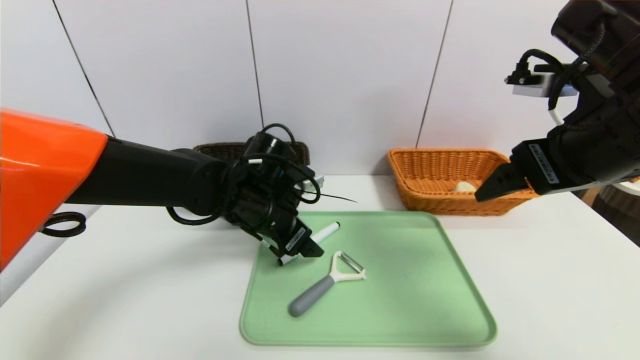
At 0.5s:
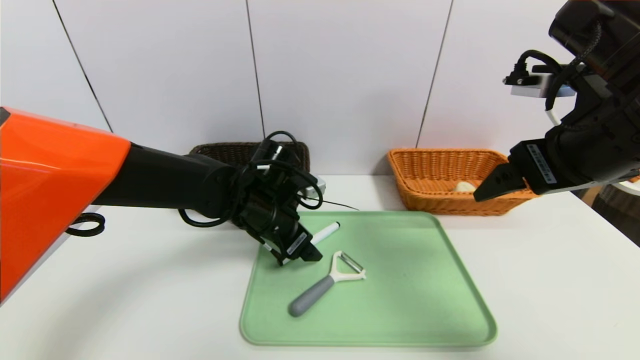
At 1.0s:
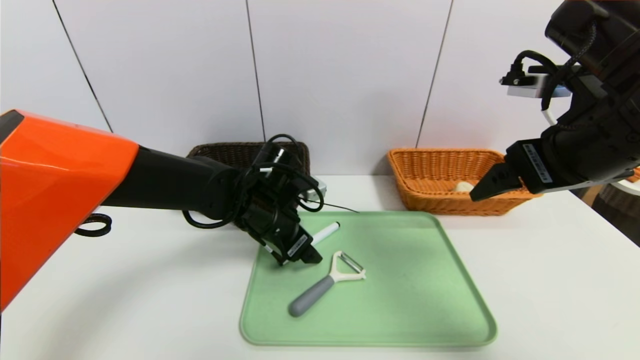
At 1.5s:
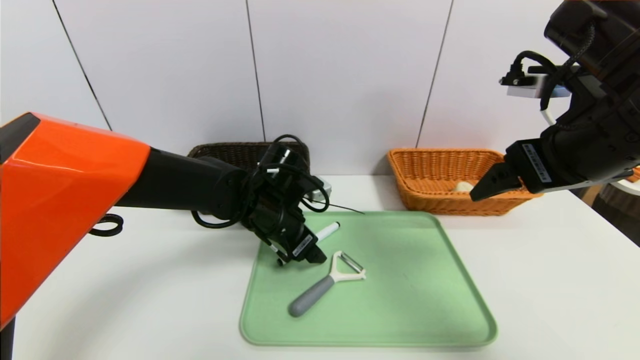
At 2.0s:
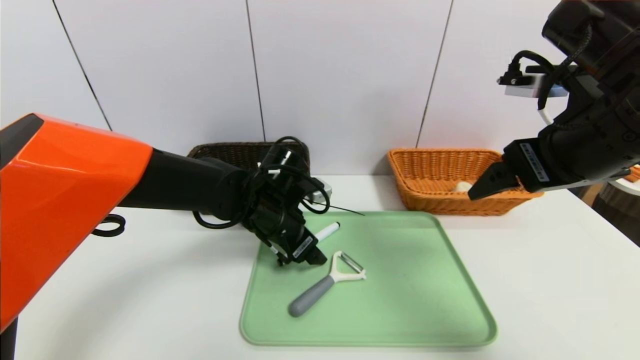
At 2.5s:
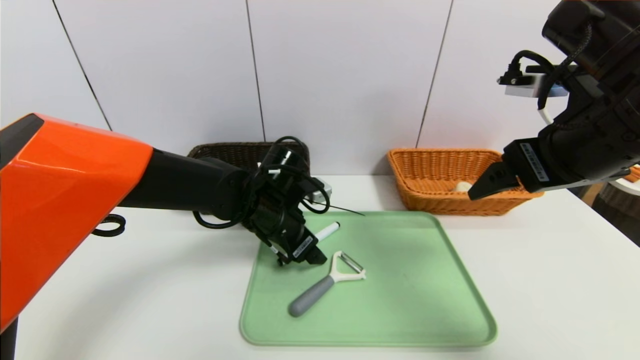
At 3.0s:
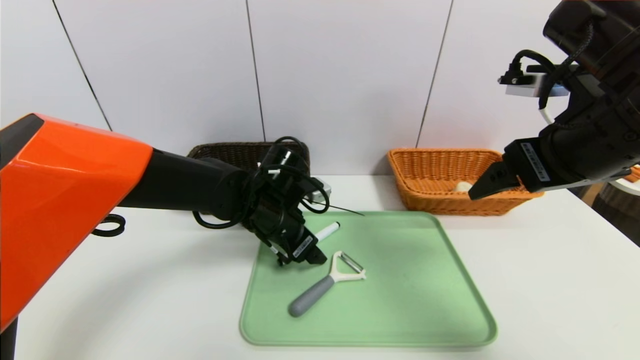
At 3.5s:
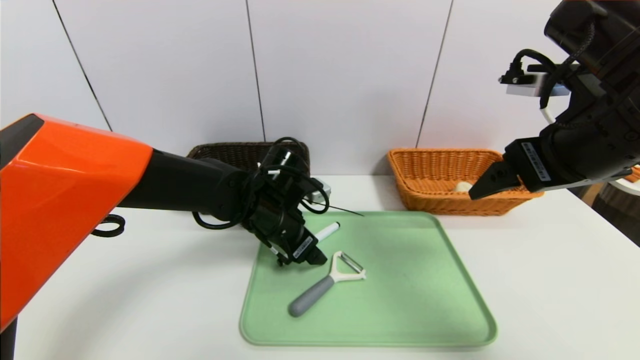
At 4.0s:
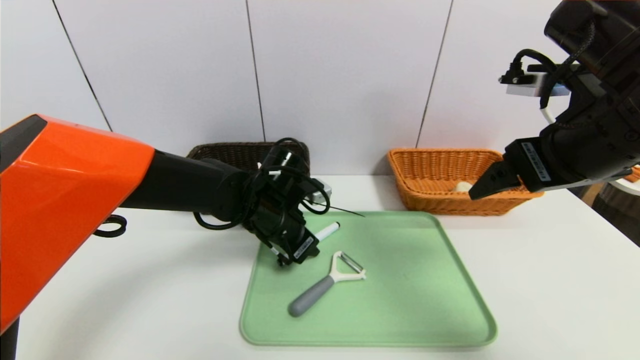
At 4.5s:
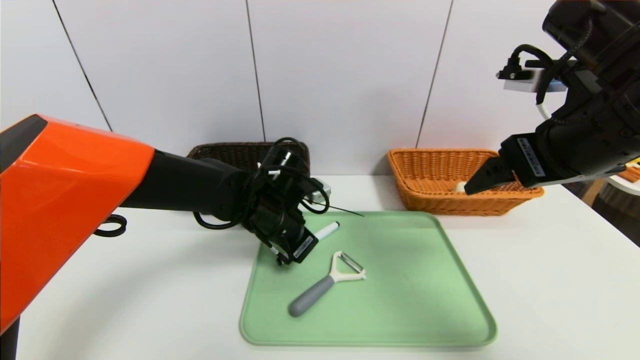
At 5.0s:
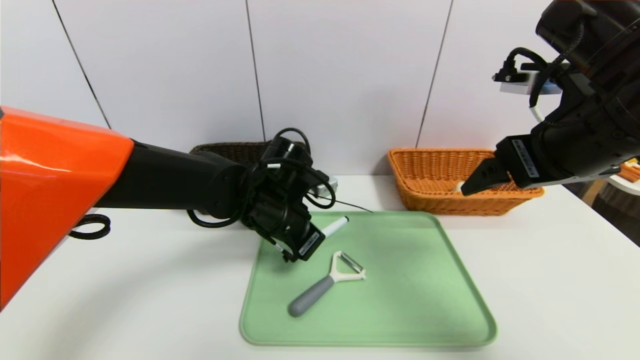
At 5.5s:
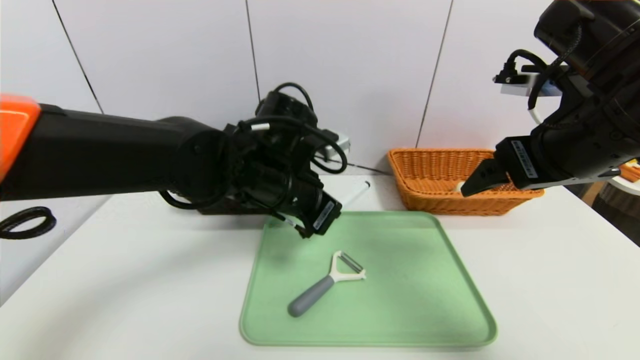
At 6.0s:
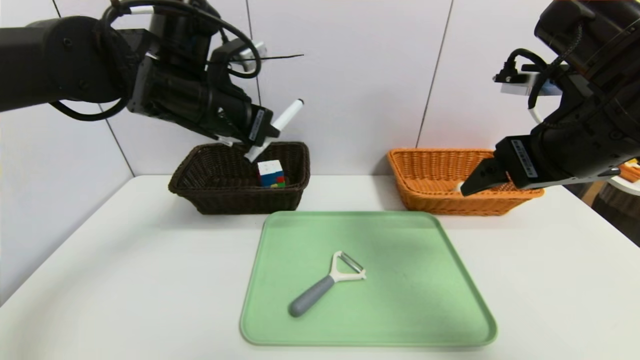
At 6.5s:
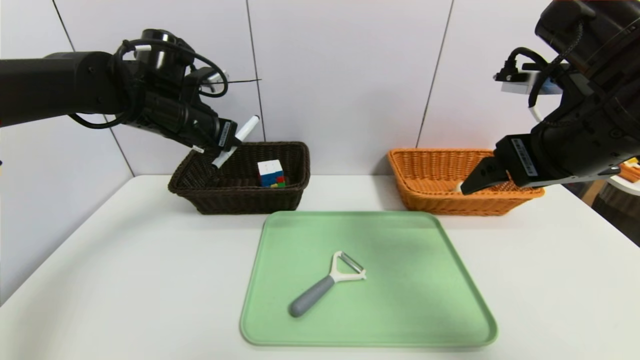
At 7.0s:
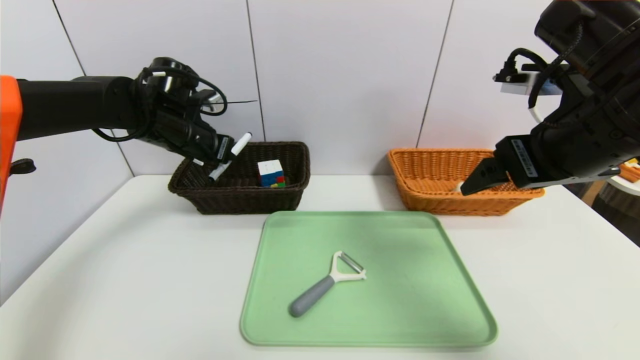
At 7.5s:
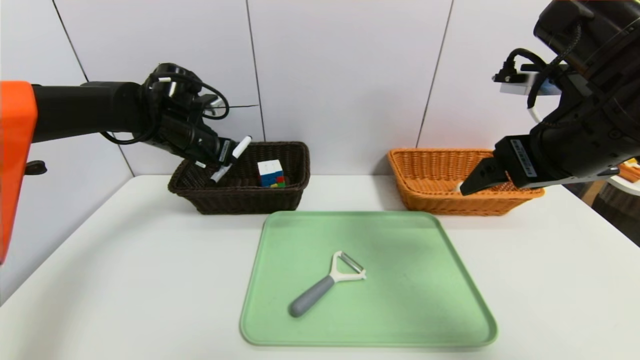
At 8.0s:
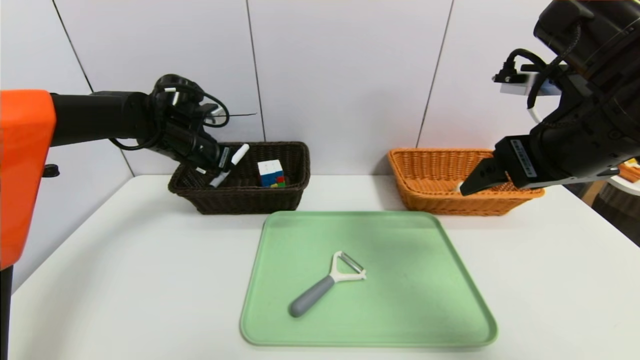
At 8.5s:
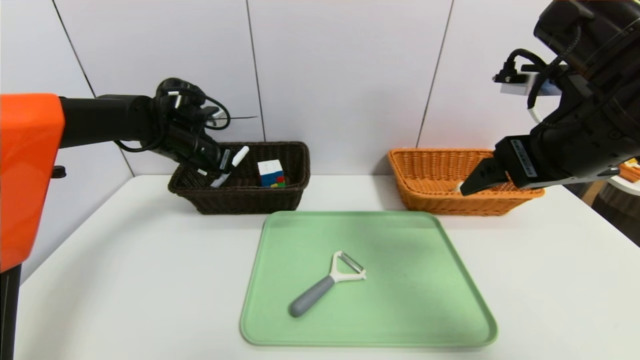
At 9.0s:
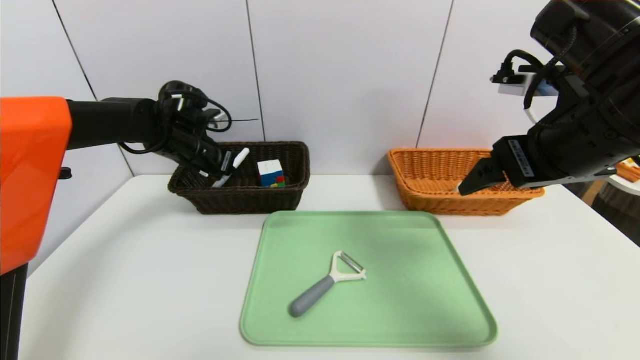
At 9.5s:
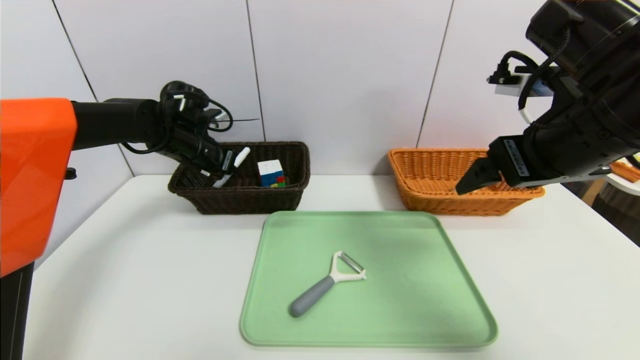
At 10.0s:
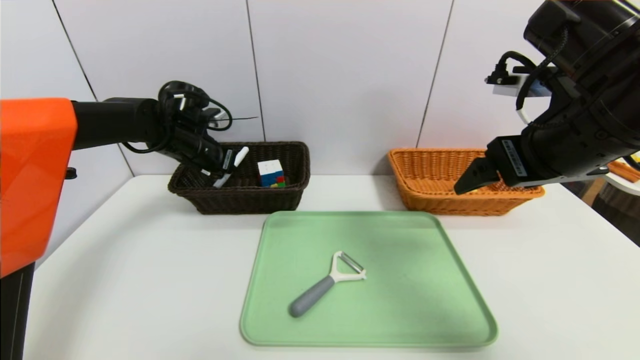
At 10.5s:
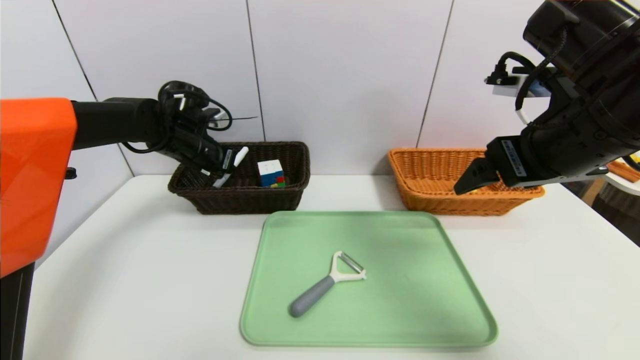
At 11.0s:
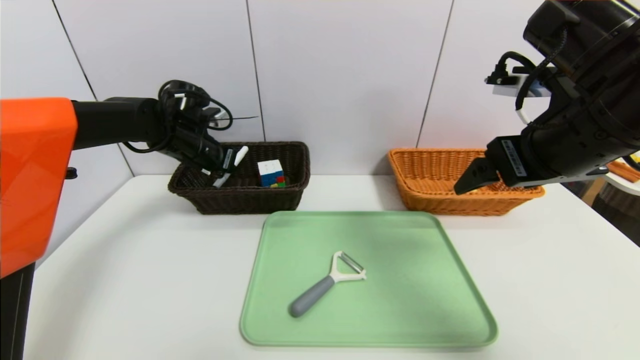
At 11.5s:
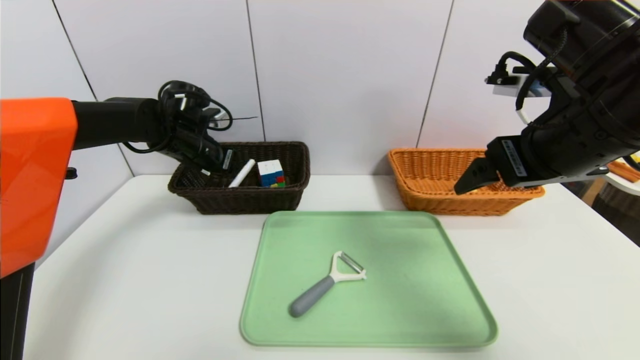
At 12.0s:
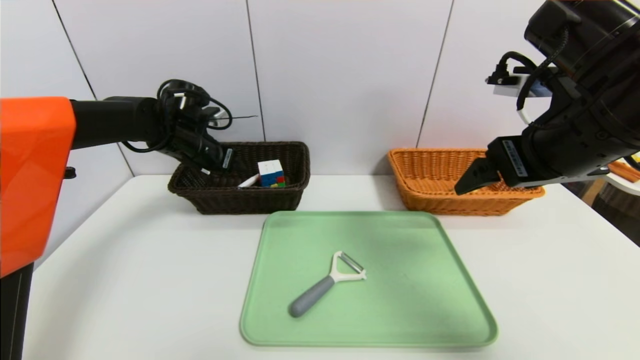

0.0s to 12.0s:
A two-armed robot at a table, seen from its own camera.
Task of the whole recording: place the food in the right basket with the right gripper, and place the non food items in the left basket with the left gripper.
0.0s to 2.0s: The grippers move only a little.
2.0s to 4.0s: The left gripper closes.
4.0s to 6.0s: The left gripper moves upward and to the left, roughly 20 cm, and closes.
6.0s to 8.0s: The left gripper moves forward, downward and to the left, some 15 cm.
8.0s to 10.0s: The grippers make only small movements.
10.0s to 12.0s: The left gripper opens up.

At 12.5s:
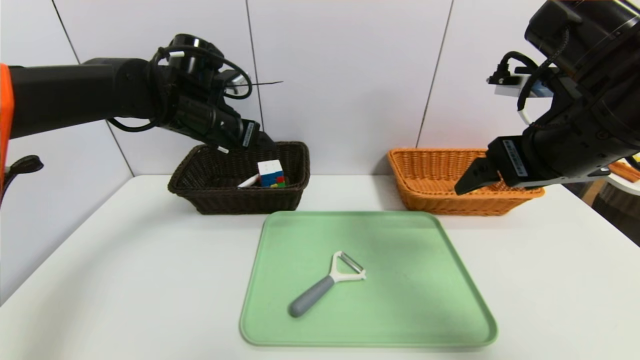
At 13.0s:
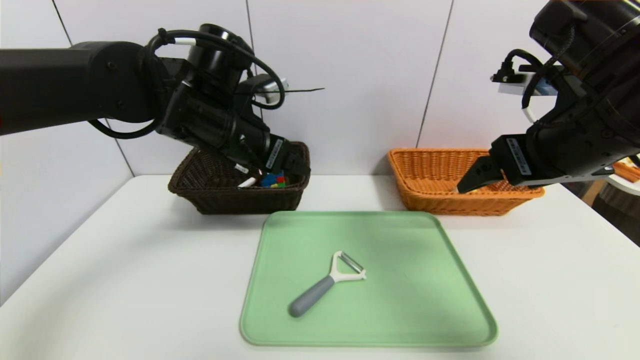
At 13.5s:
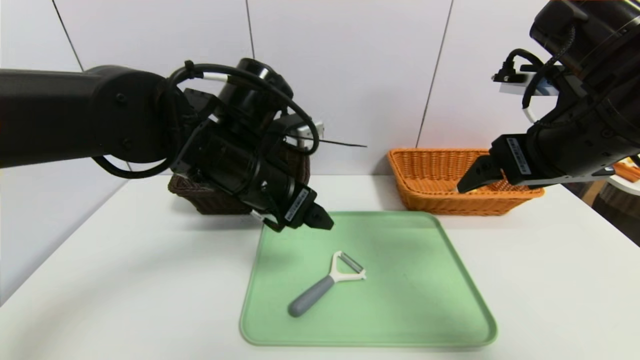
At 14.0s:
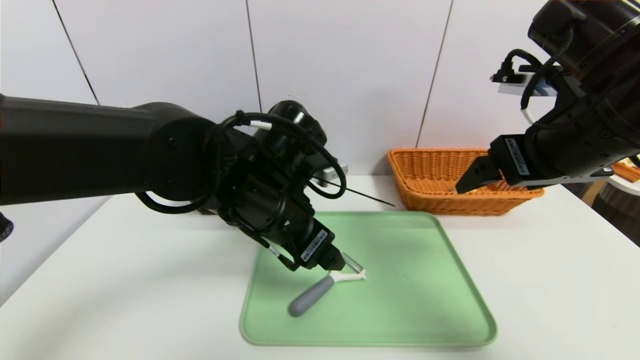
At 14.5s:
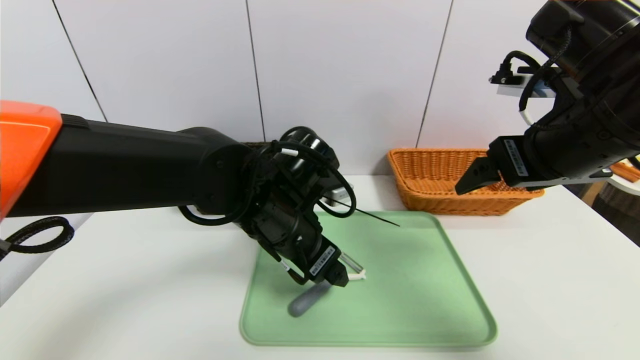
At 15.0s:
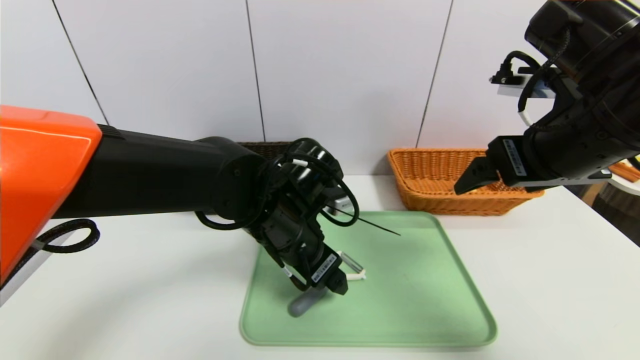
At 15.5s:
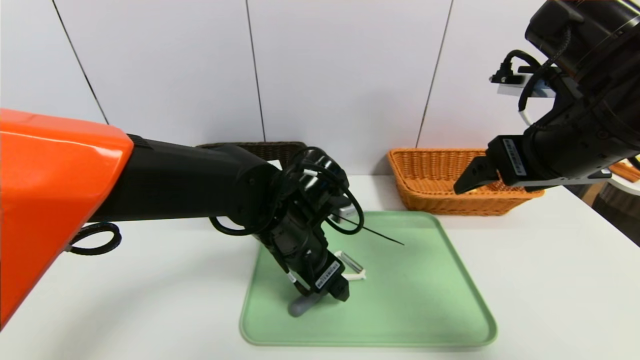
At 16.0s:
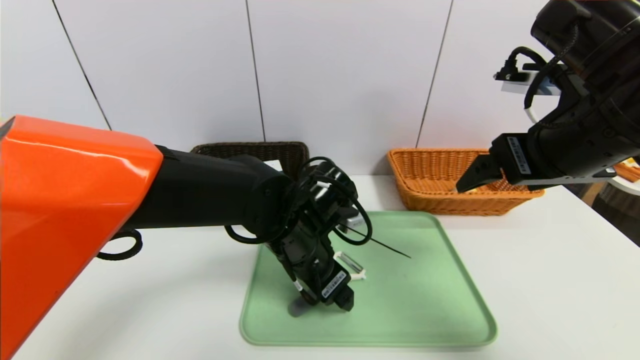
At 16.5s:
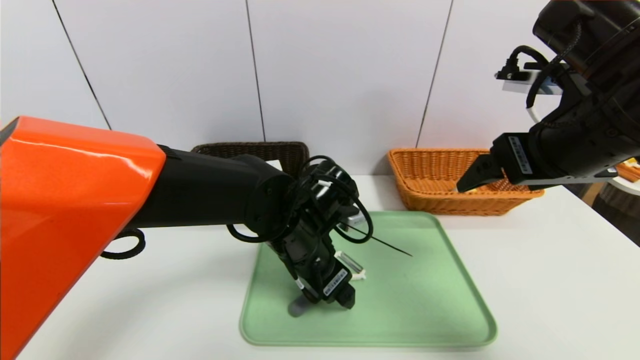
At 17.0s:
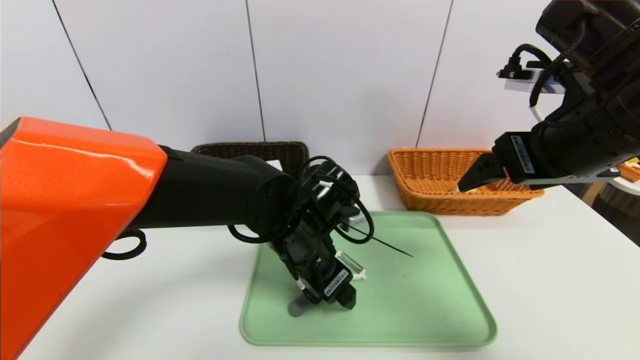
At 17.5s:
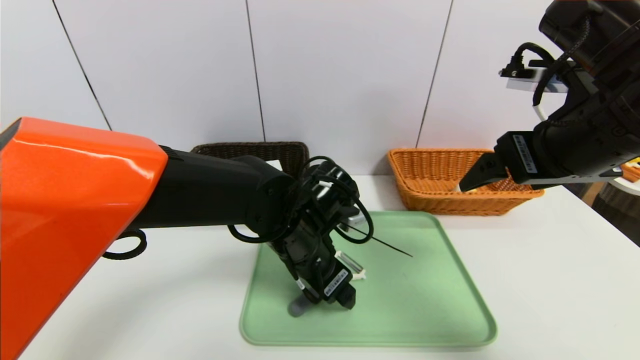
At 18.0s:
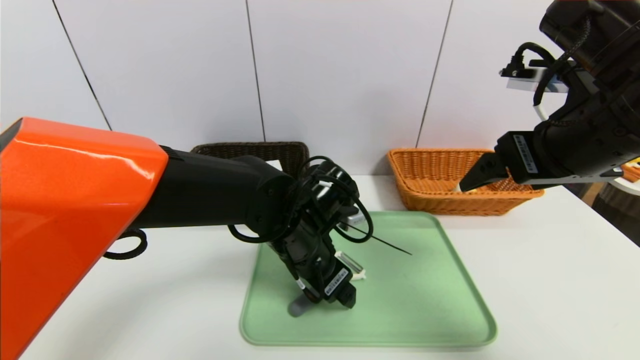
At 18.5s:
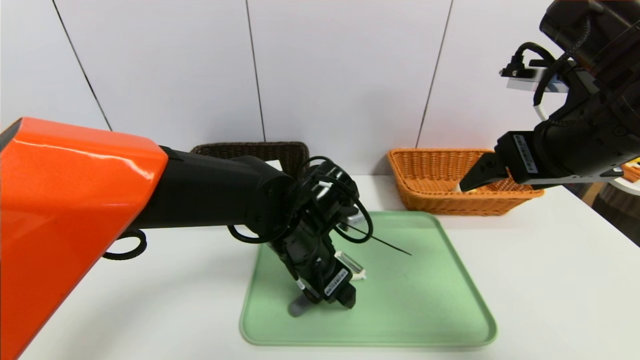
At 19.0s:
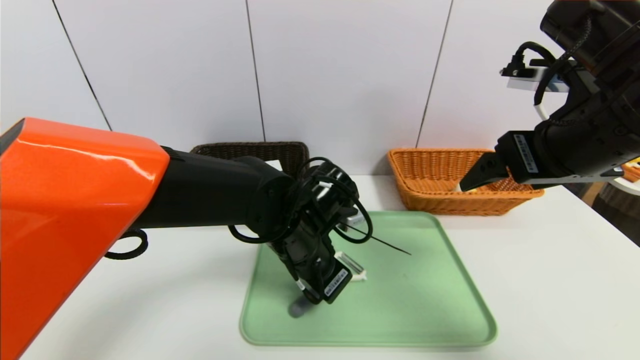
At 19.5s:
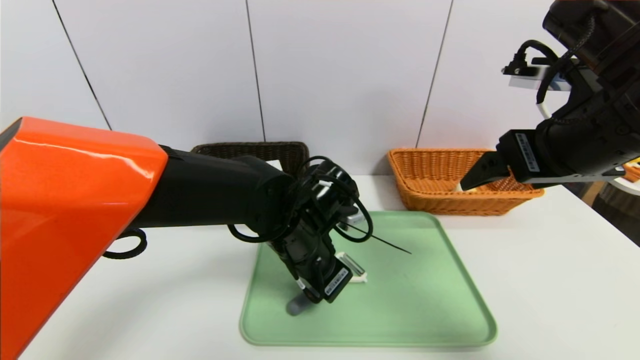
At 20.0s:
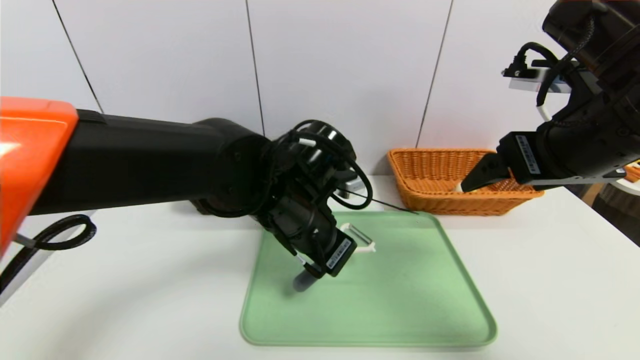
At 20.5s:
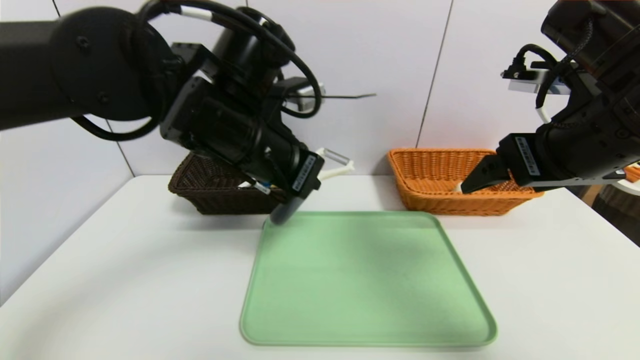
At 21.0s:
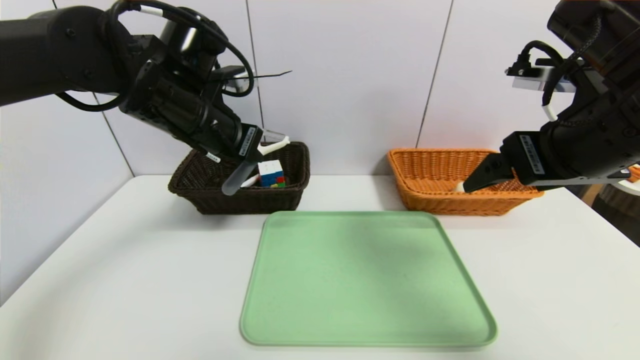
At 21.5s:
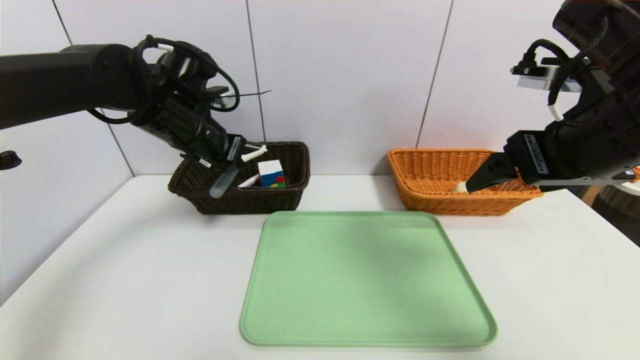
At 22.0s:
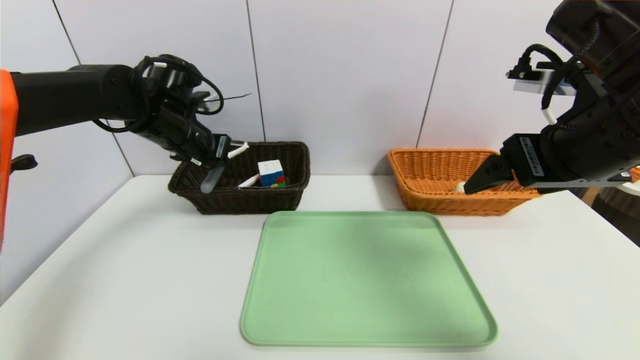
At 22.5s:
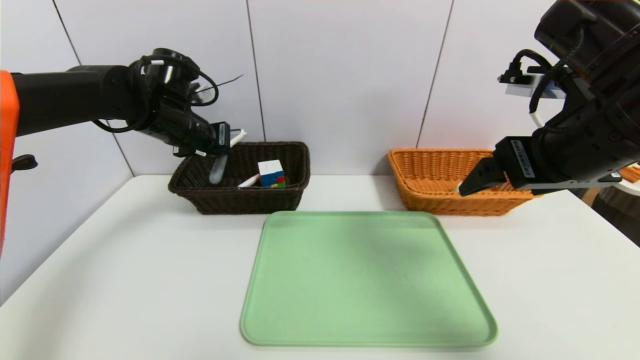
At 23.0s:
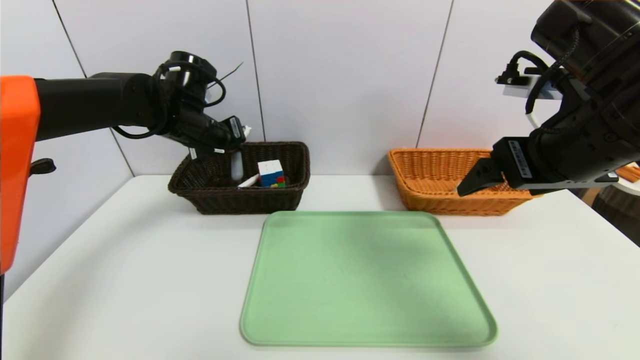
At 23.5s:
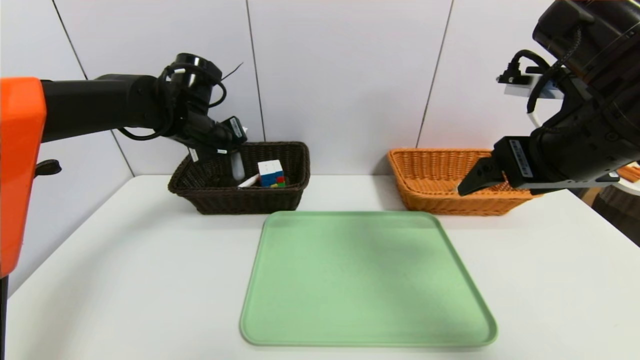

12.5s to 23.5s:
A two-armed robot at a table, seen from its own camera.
Task of the whole recording: place the food in the right basket with the right gripper, and place the non food items in the left basket with the left gripper.
12.5s to 14.5s: The left gripper is displaced to the right, backward and downward by approximately 20 cm.
14.5s to 16.0s: The grippers make only small movements.
16.0s to 18.0s: Both grippers stay put.
18.0s to 20.0s: The left gripper moves upward, some 5 cm, and closes.
20.0s to 21.5s: The left gripper goes about 20 cm to the left and forward.
